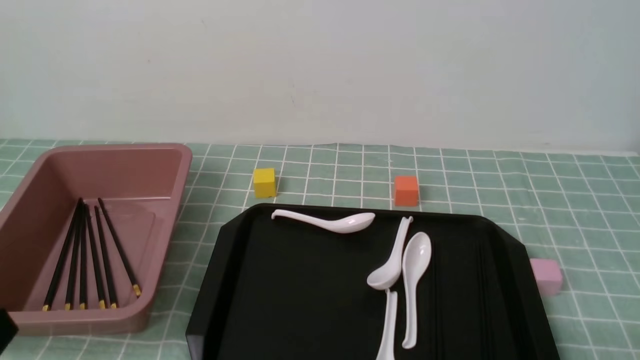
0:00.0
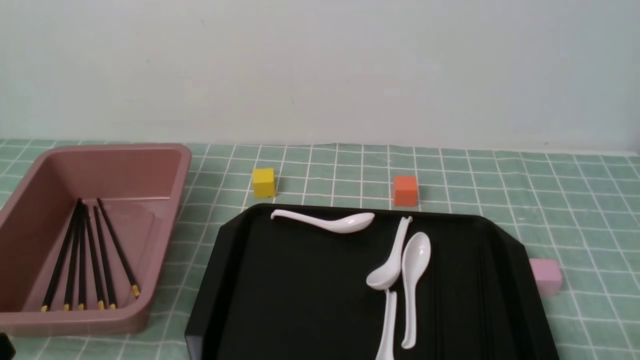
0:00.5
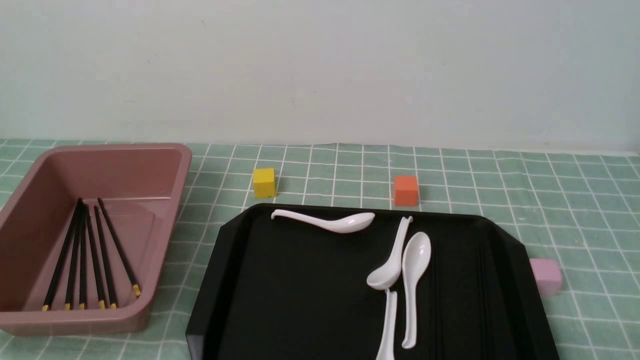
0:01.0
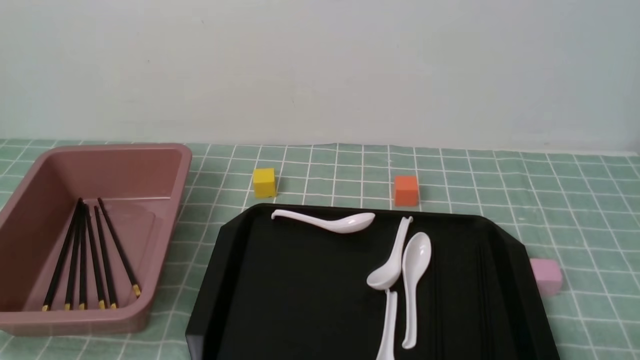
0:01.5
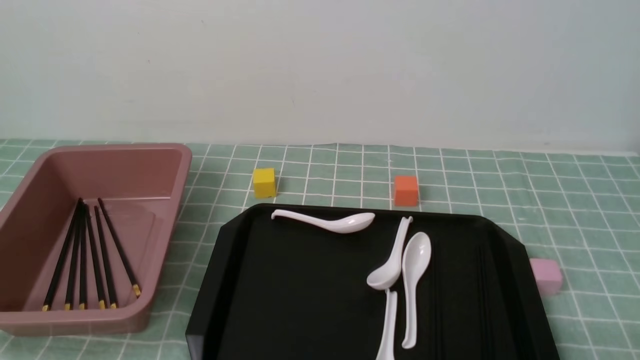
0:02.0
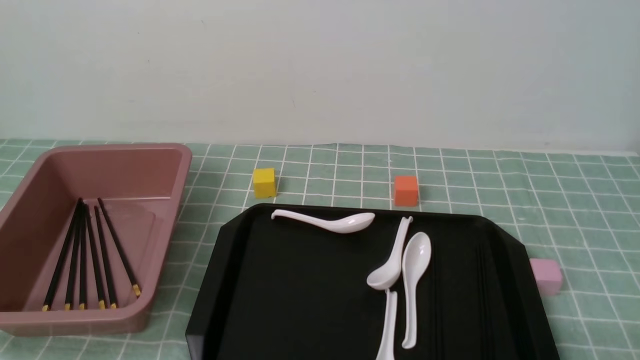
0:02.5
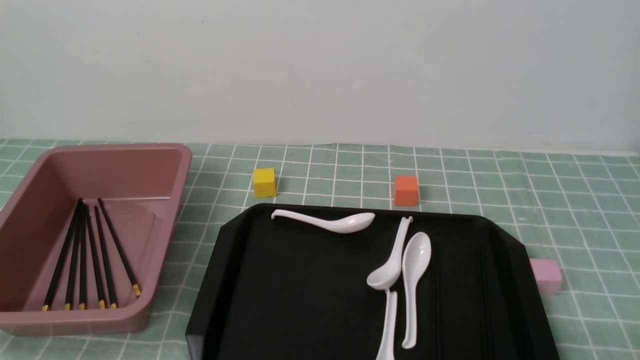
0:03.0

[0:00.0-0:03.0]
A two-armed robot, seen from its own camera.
0:01.5 to 0:03.0: The two grippers keep their place.
